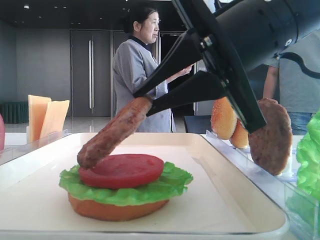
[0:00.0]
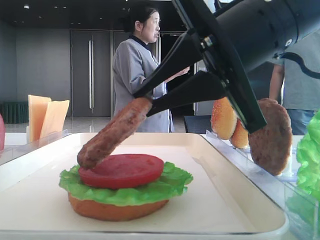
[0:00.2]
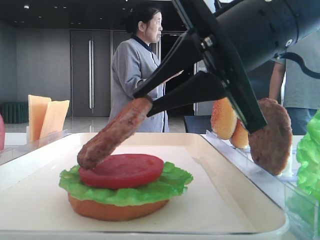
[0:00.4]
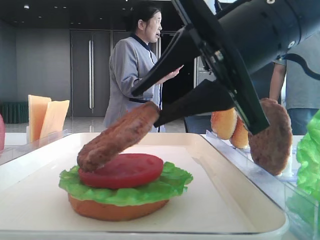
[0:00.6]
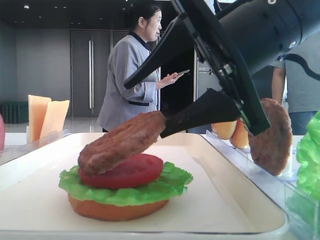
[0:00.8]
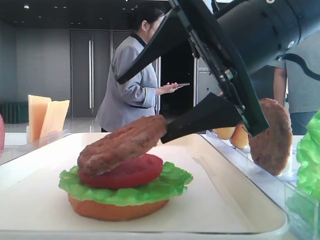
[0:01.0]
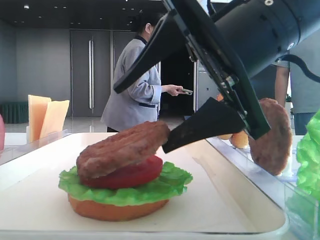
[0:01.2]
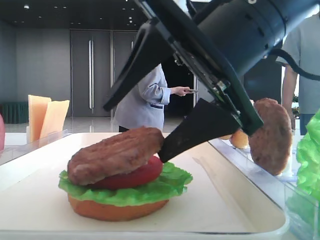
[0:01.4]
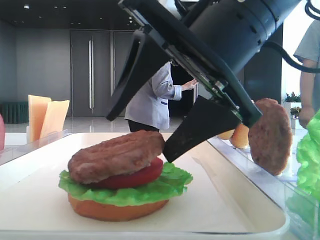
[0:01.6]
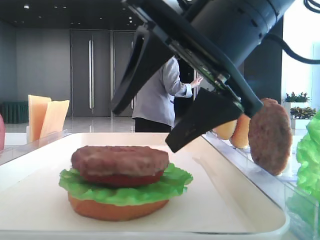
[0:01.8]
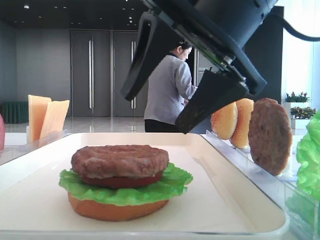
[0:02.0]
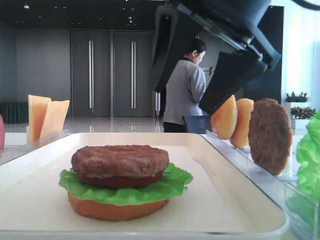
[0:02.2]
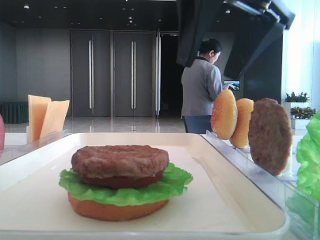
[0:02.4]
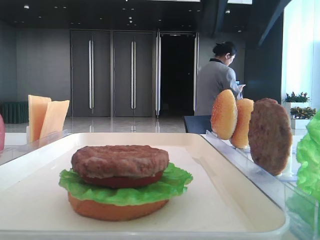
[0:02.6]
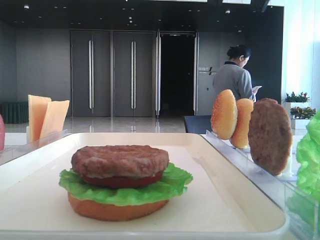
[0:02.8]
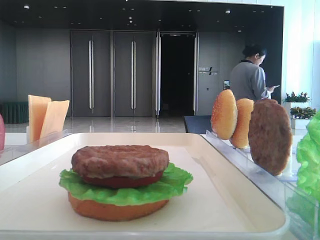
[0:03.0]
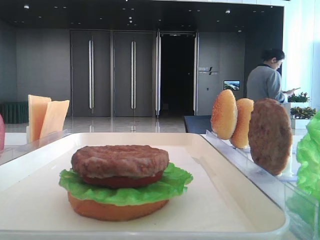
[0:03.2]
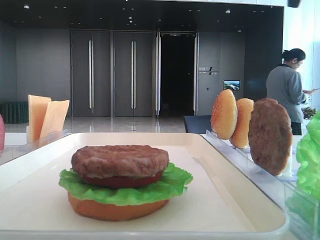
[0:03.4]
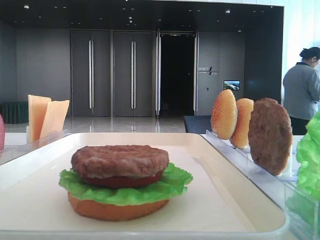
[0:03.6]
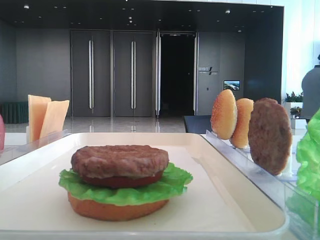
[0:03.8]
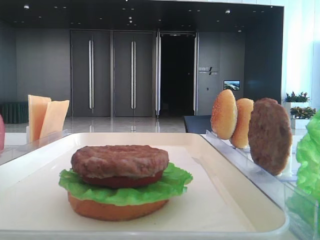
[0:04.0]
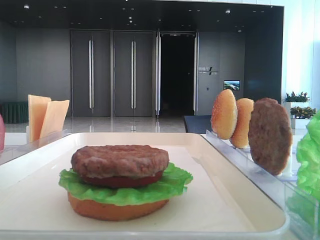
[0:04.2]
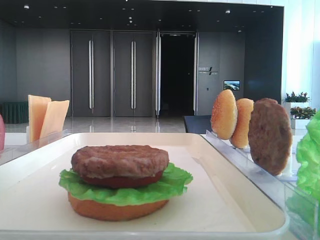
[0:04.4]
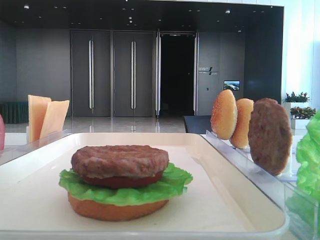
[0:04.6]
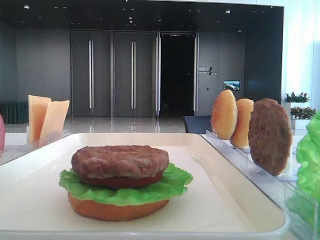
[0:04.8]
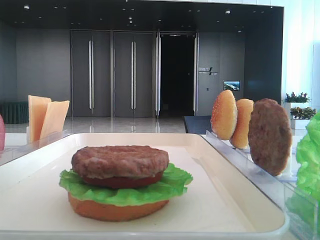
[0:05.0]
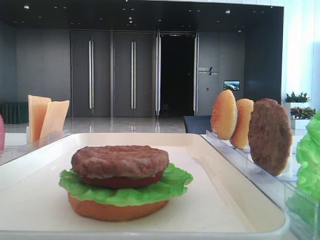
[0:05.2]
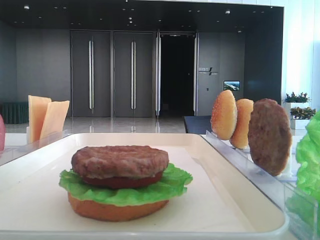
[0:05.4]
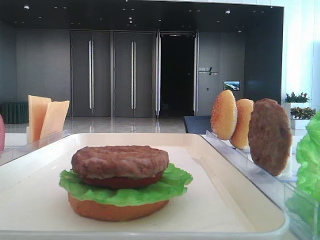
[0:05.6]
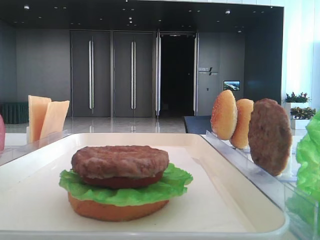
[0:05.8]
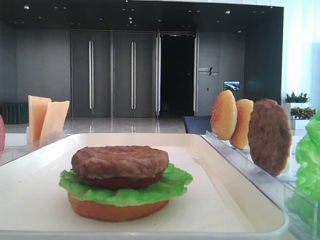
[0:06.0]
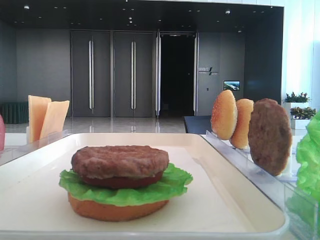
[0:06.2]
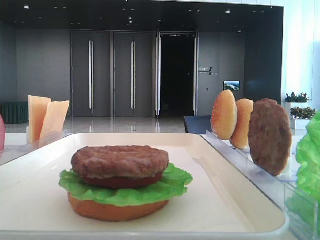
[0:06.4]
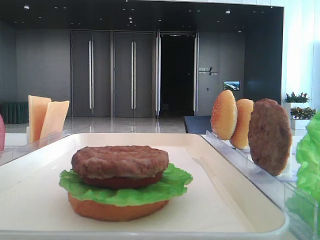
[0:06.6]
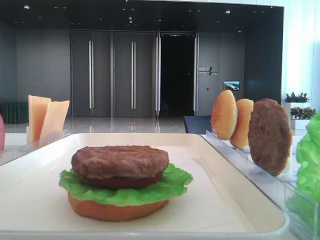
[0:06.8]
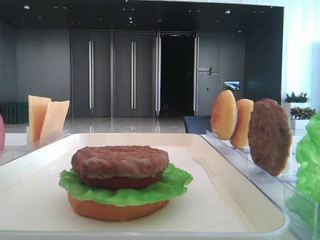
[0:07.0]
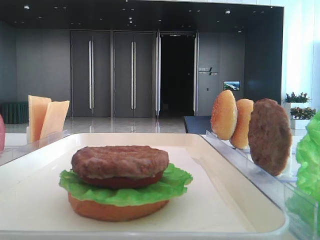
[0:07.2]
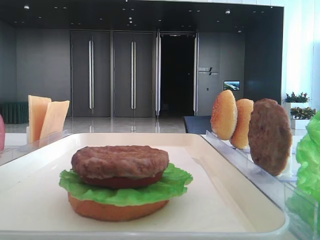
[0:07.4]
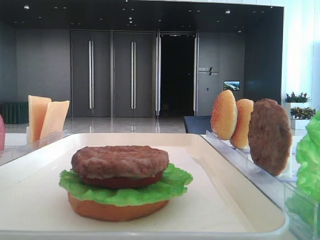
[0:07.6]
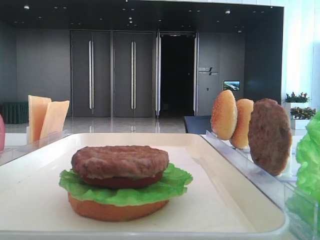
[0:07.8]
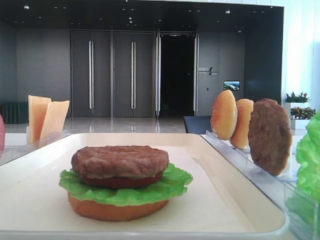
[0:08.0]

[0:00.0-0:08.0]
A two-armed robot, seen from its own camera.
0:00.0 to 0:01.6: The right gripper opens up.
0:01.6 to 0:03.2: The right gripper heads upward, covering some 20 cm.
0:03.2 to 0:04.8: The right gripper is displaced to the right, upward and backward by approximately 25 cm.
0:06.4 to 0:08.0: Both grippers stay put.

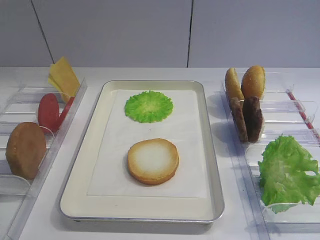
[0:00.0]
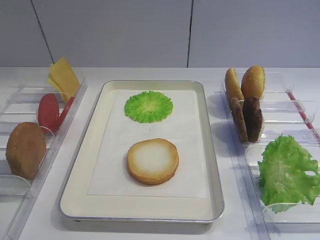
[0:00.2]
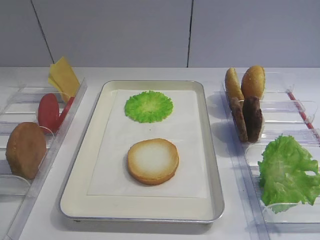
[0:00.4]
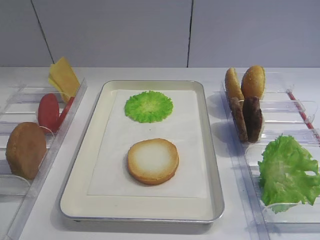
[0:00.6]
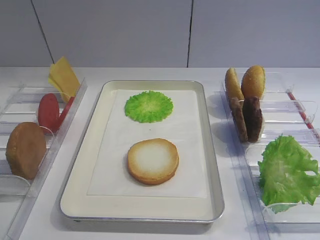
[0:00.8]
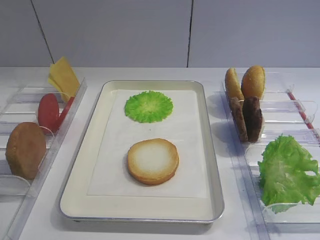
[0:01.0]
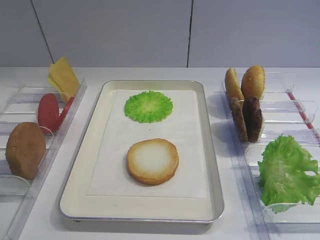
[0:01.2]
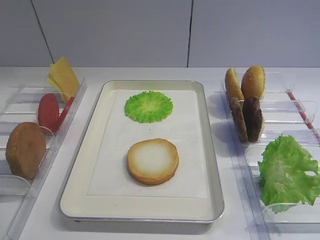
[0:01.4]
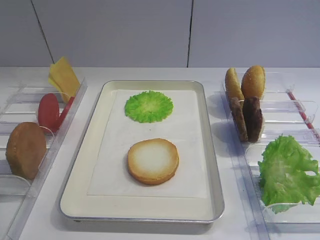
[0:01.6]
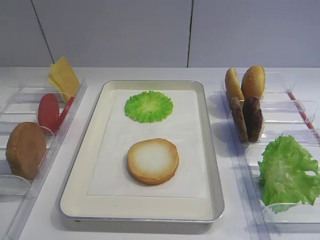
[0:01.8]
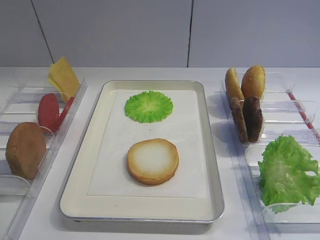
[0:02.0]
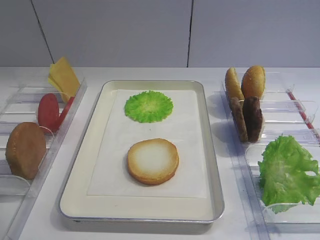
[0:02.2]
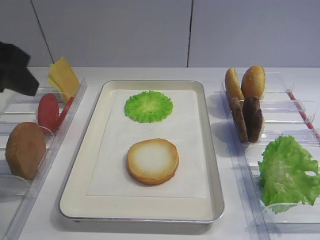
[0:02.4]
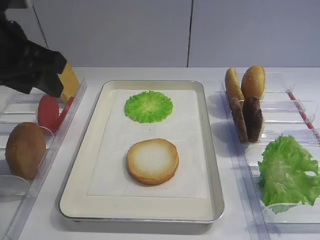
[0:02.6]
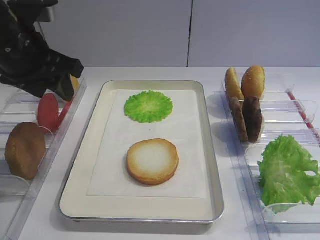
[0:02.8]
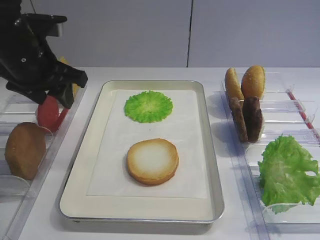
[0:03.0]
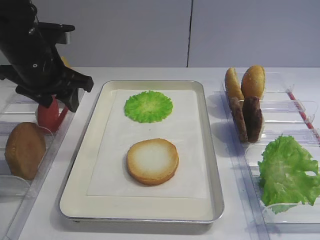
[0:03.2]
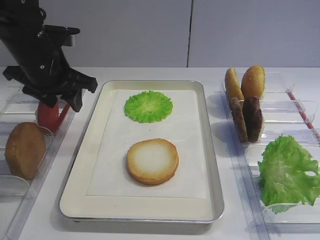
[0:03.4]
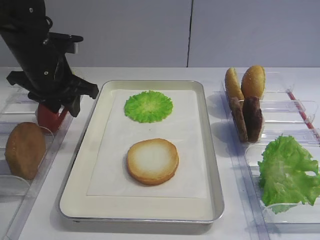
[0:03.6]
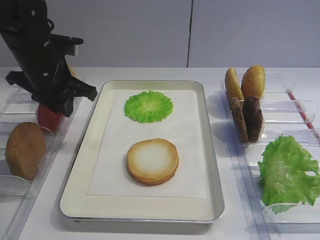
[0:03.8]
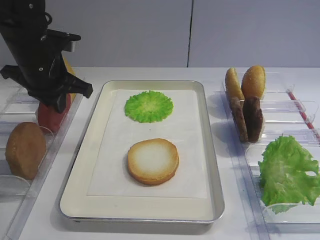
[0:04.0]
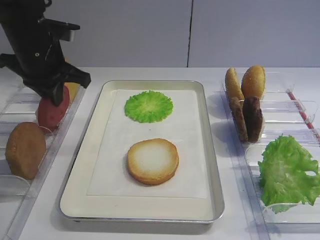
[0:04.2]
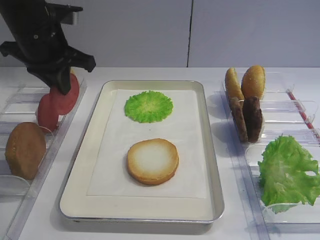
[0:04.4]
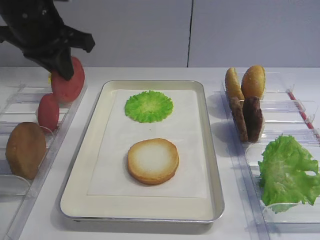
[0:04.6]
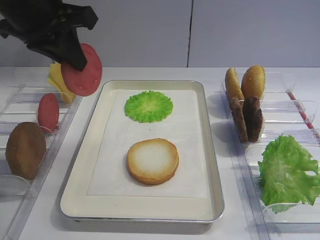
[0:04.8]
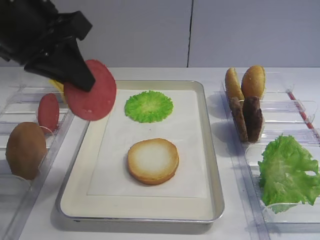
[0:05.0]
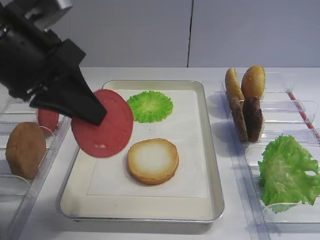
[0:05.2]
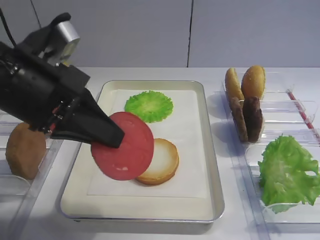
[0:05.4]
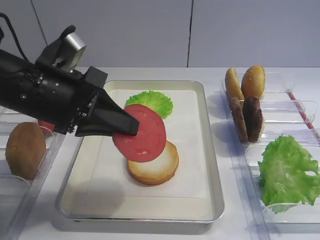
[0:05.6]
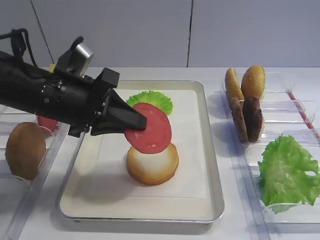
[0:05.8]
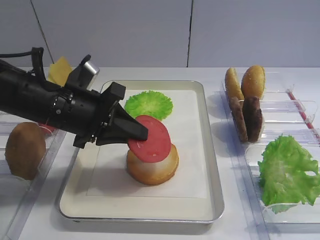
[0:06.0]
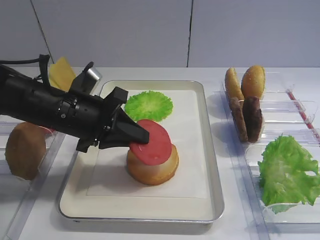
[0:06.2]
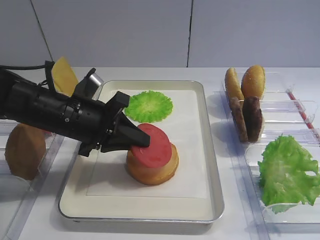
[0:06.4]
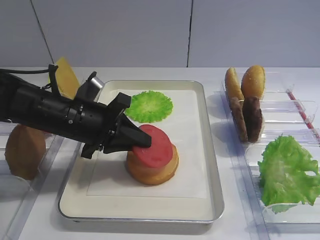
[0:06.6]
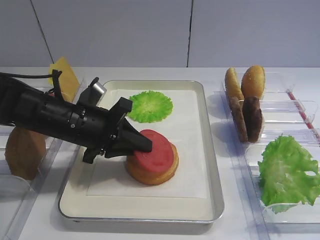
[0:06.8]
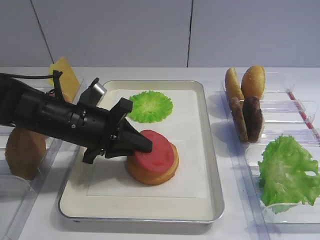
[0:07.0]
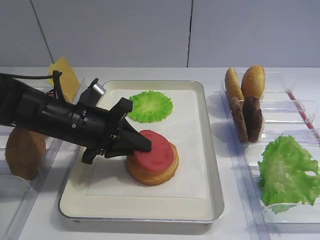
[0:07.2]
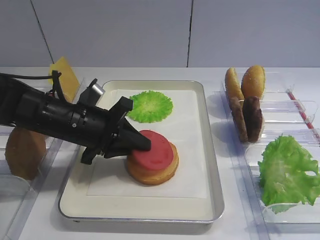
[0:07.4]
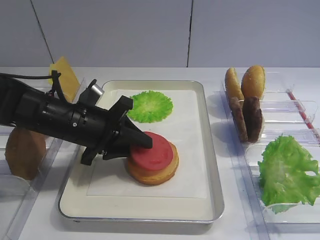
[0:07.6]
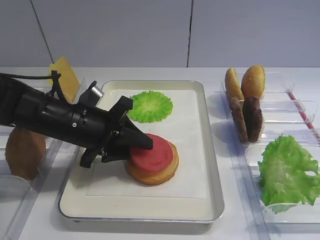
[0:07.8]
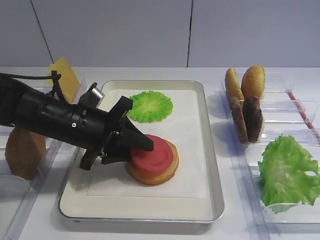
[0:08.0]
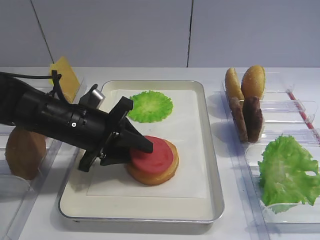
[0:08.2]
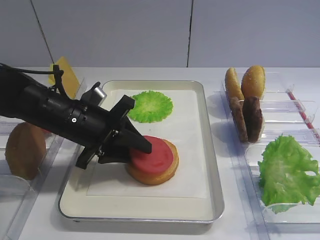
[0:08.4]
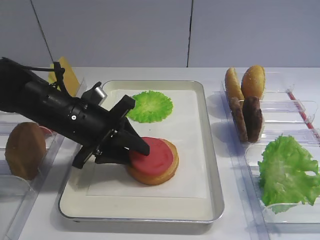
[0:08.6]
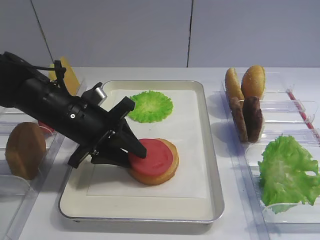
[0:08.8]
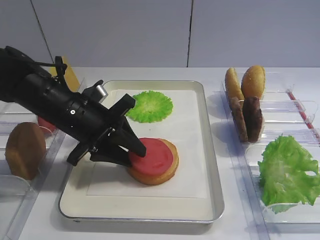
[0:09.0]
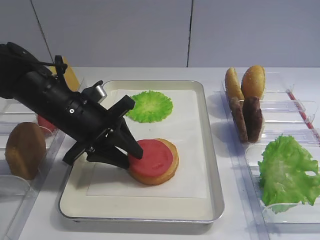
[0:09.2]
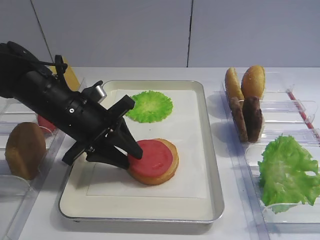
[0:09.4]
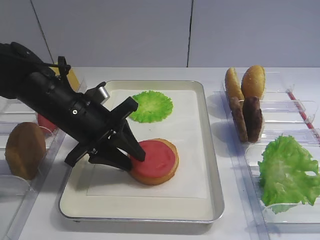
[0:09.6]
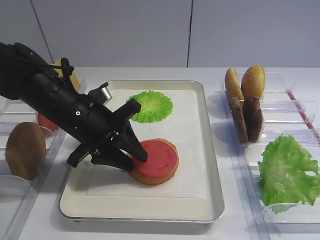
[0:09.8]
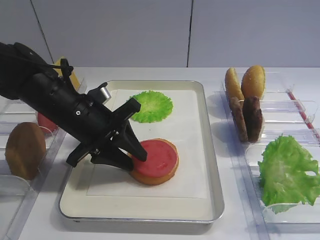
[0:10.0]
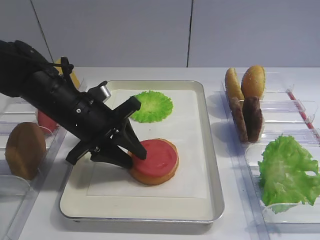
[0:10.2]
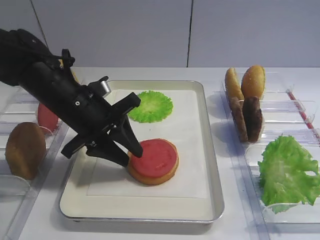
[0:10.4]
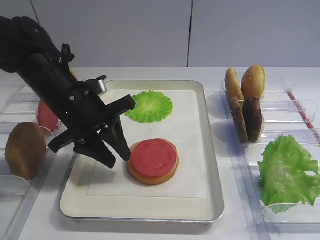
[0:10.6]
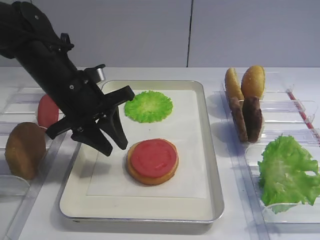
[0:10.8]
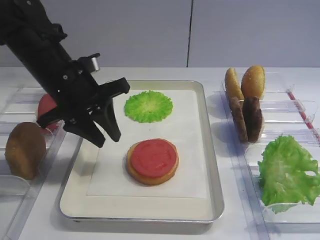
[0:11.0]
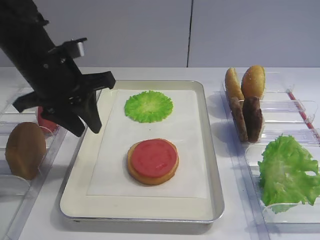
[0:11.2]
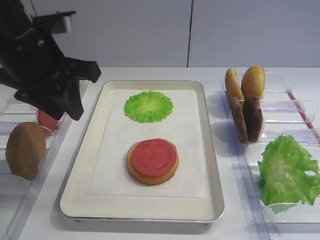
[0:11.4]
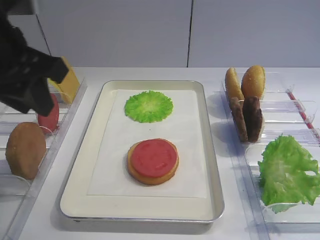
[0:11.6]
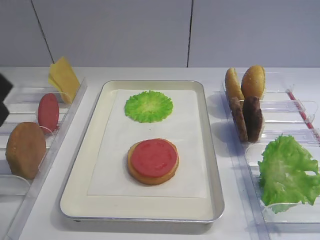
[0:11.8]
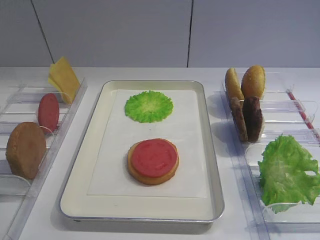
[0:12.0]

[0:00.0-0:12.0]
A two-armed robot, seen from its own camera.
Step, 0:00.0 to 0:04.0: Pick up the tomato slice with the left gripper.
Step, 0:04.2 to 0:10.6: Place the tomato slice on the bread slice with the left gripper.
0:01.6 to 0:03.0: The left gripper travels forward by some 30 cm.
0:03.0 to 0:04.4: The left gripper closes its fingers.
0:04.4 to 0:06.0: The left gripper is displaced backward and downward by approximately 10 cm.
0:06.0 to 0:07.6: The left gripper shifts by roughly 5 cm, and opens up.
0:07.6 to 0:09.0: There are only small adjustments of the grippers.
0:09.0 to 0:10.4: The grippers stay close to where they were, moving slightly.
0:10.4 to 0:12.0: The left gripper shifts about 25 cm backward, upward and to the left.

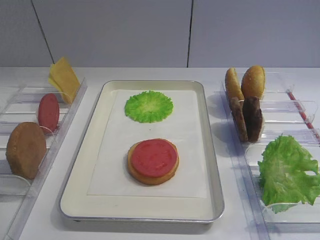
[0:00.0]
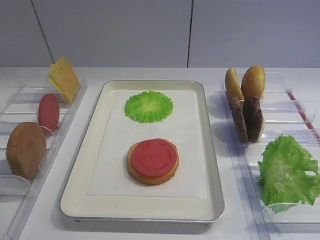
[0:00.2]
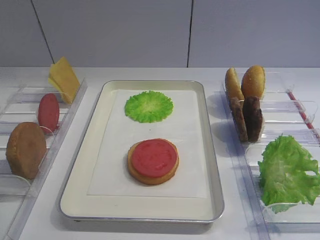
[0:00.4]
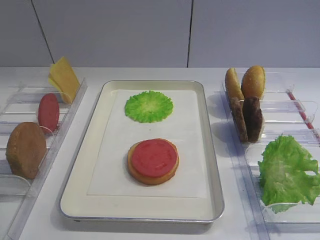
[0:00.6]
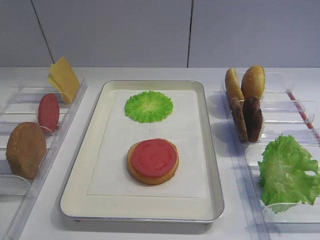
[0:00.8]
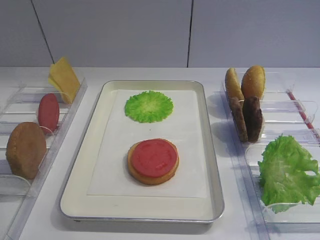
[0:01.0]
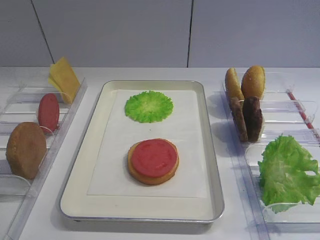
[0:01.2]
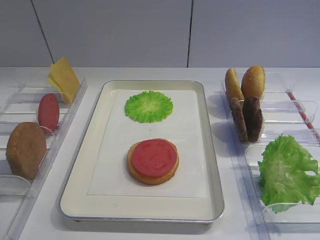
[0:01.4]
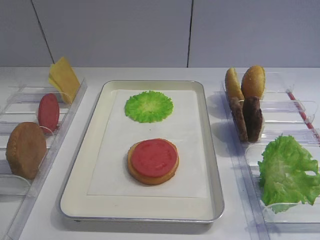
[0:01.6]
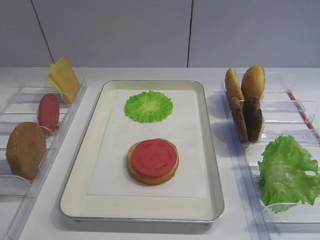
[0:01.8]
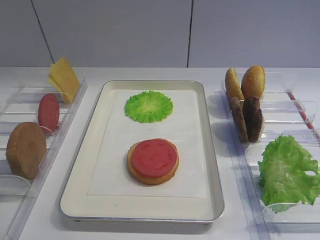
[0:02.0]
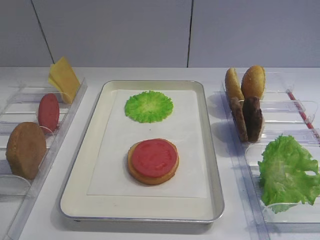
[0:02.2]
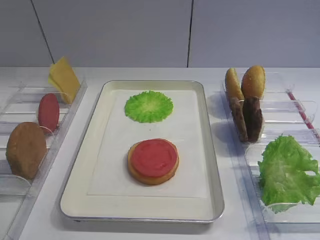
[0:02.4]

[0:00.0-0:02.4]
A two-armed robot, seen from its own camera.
0:00.0 to 0:02.4: Neither gripper changes place.
